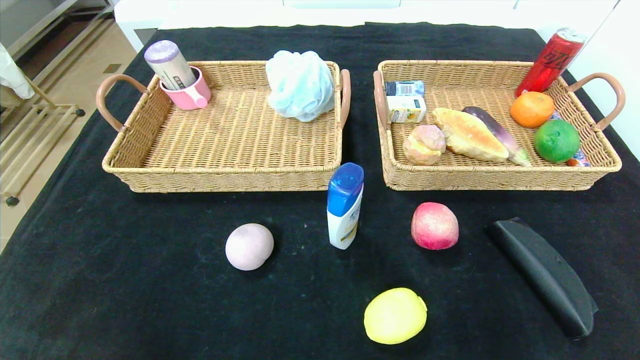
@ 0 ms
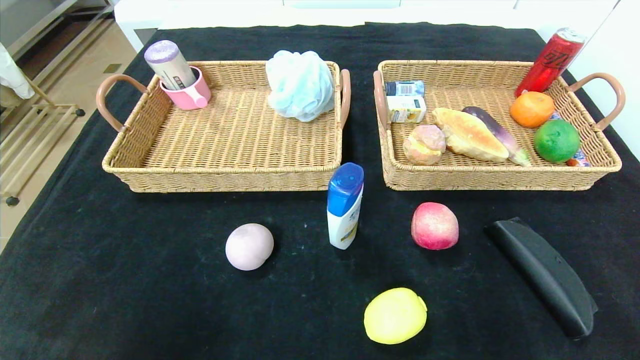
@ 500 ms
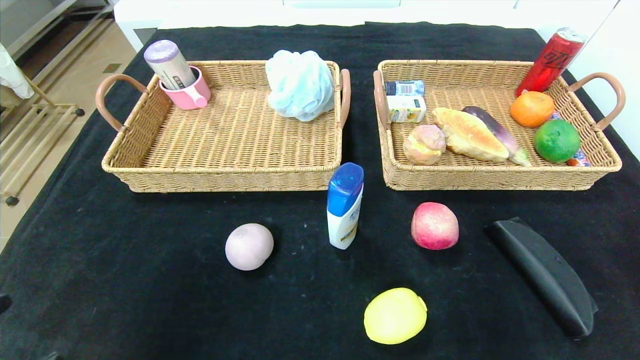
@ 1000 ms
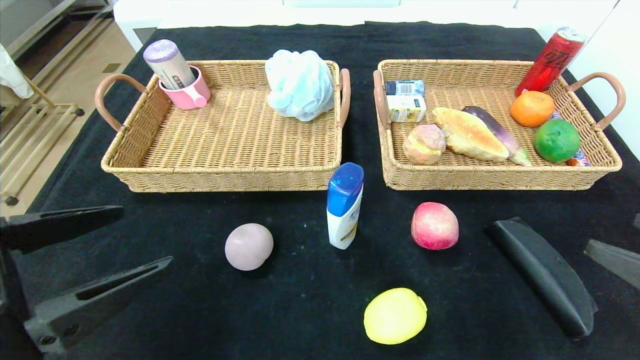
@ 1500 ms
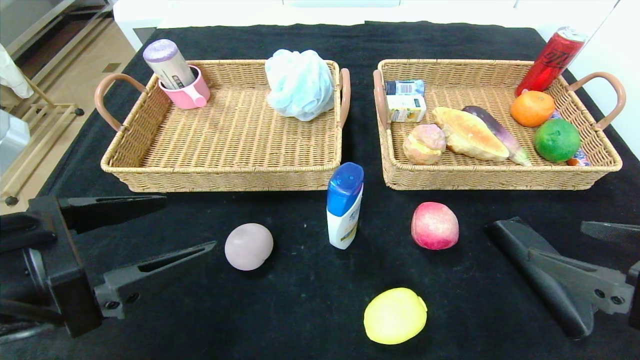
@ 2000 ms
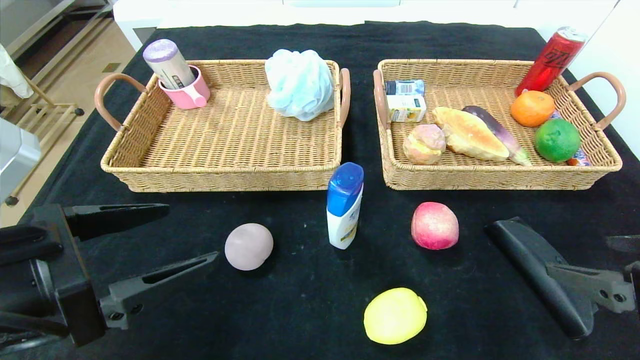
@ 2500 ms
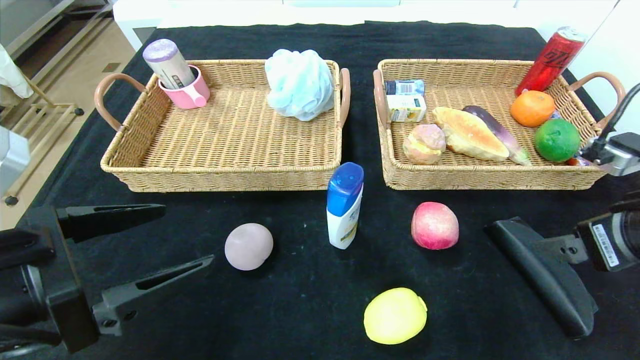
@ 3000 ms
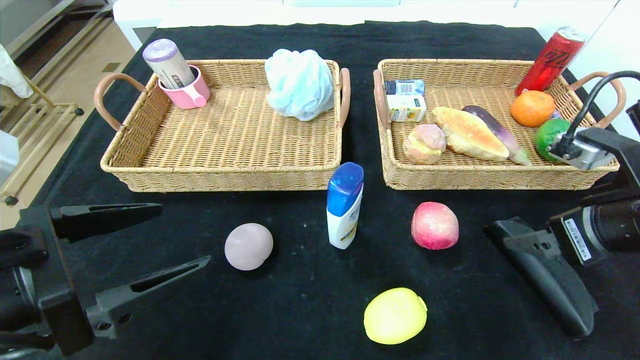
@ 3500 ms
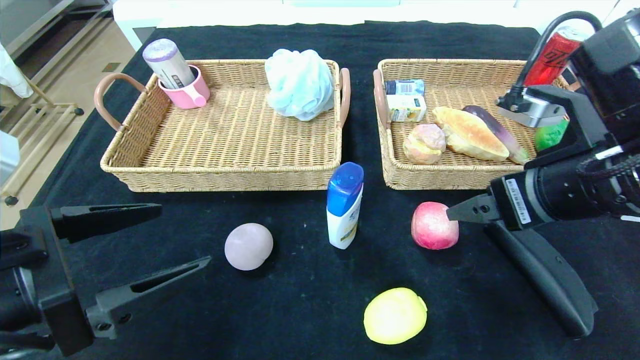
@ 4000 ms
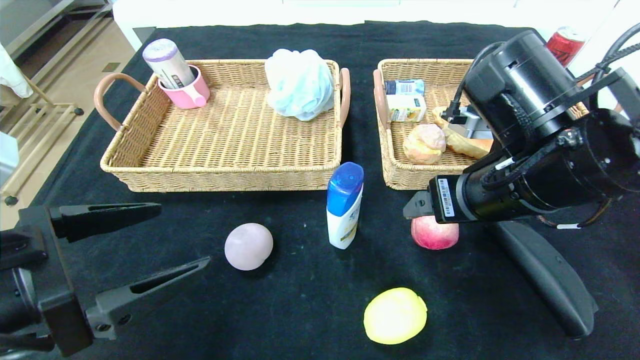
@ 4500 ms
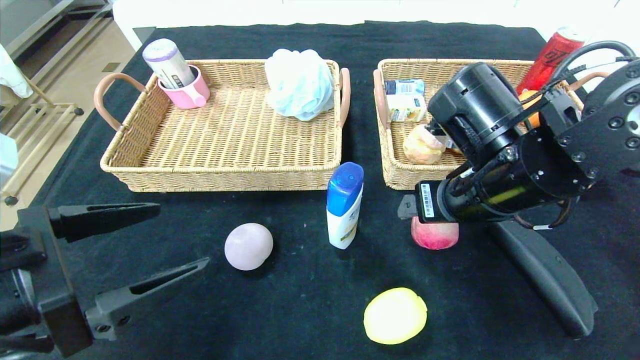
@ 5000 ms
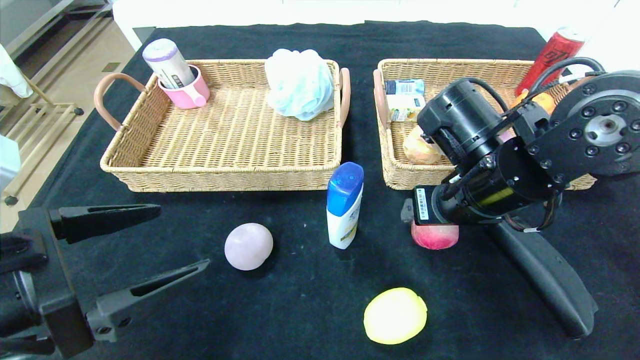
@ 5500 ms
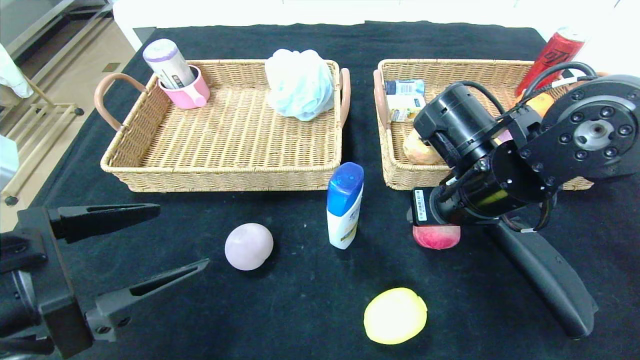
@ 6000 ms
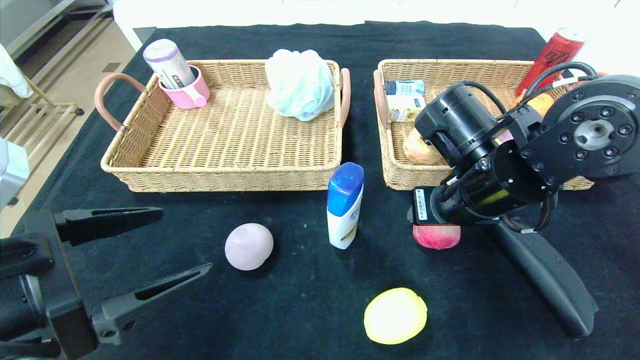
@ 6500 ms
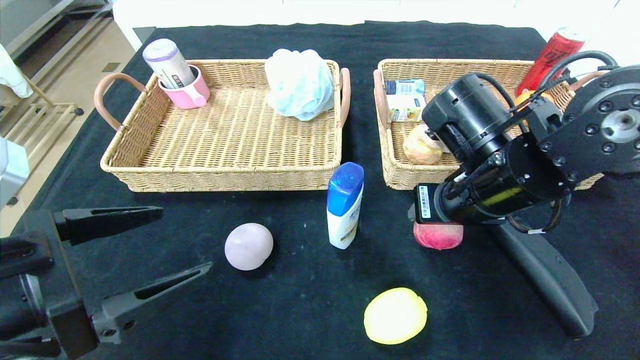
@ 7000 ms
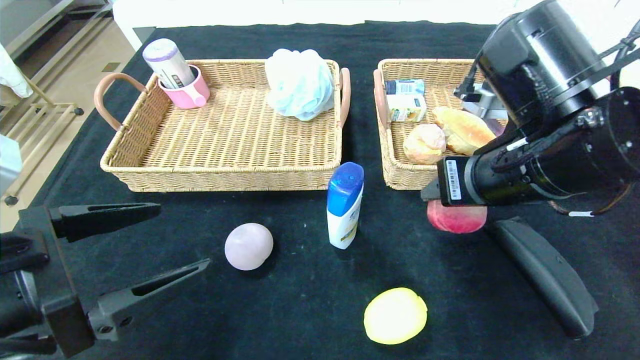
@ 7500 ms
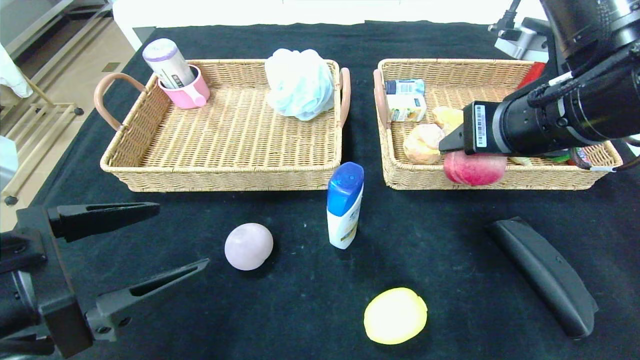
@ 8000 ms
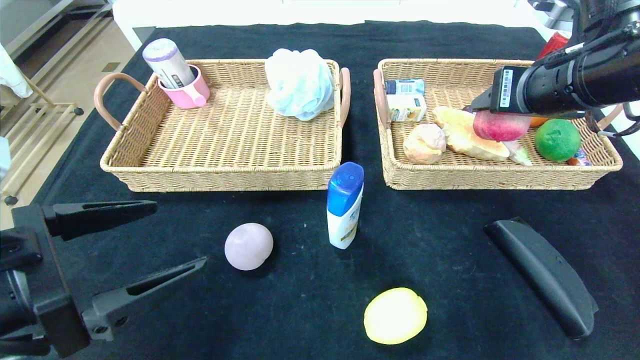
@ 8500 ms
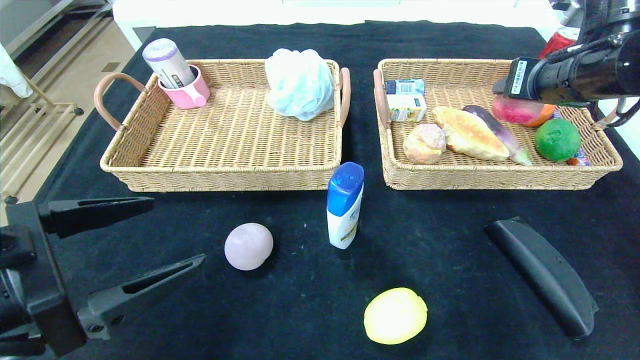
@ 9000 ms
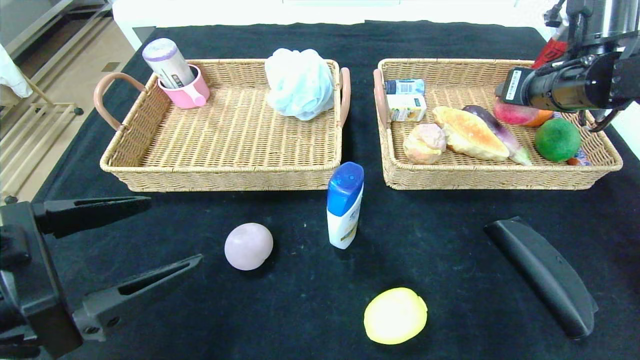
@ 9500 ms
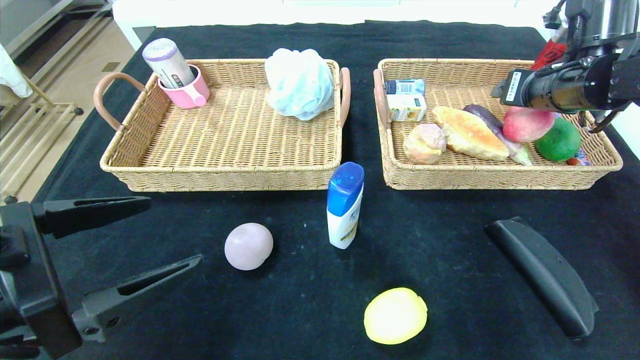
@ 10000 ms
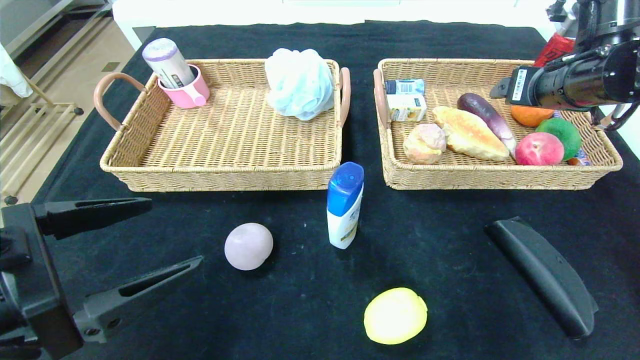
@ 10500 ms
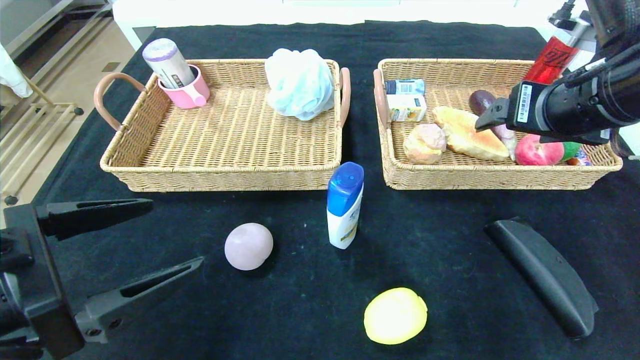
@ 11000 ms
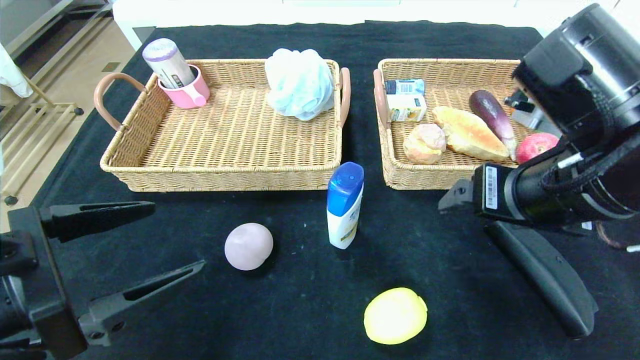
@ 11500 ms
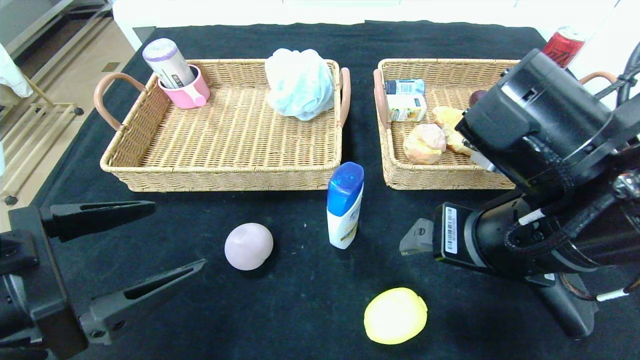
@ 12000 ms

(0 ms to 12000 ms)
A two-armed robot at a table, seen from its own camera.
Step, 0 ms - 11500 ms: Pick up the peach and put it in the right basket.
0 ms - 2000 ms: The right gripper is displaced upward, forward and to the left by roughly 25 cm; the left gripper travels upward and forward by roughly 25 cm.
2000 ms - 4000 ms: The right gripper travels forward, to the left and upward by some 15 cm.
4000 ms - 6000 ms: The right gripper goes about 10 cm forward, to the left and downward, and closes up.
6000 ms - 8000 ms: The right gripper shifts about 10 cm upward.
8000 ms - 10000 ms: The right gripper travels forward and to the right by approximately 15 cm.
10000 ms - 12000 ms: The right gripper is displaced backward and to the left by some 25 cm.

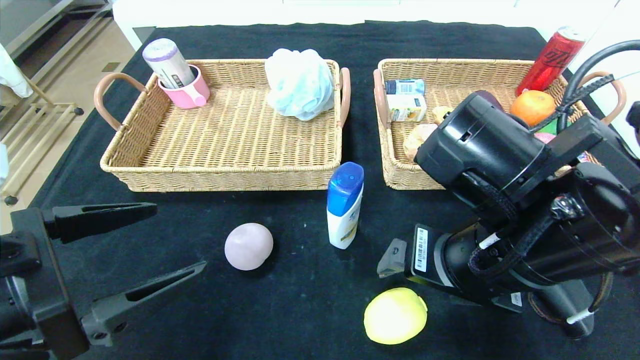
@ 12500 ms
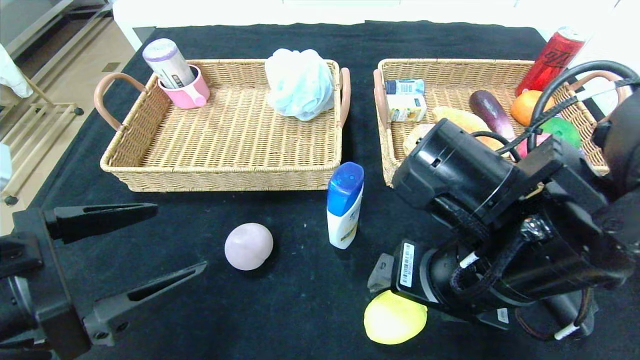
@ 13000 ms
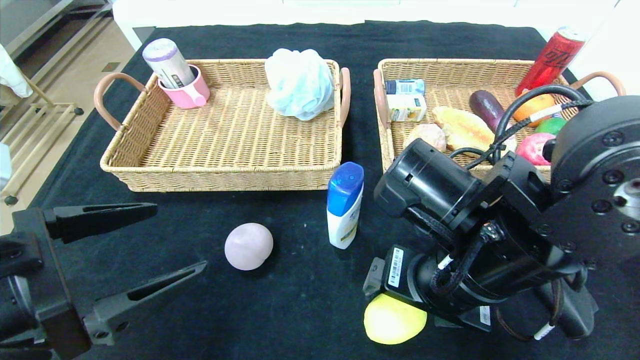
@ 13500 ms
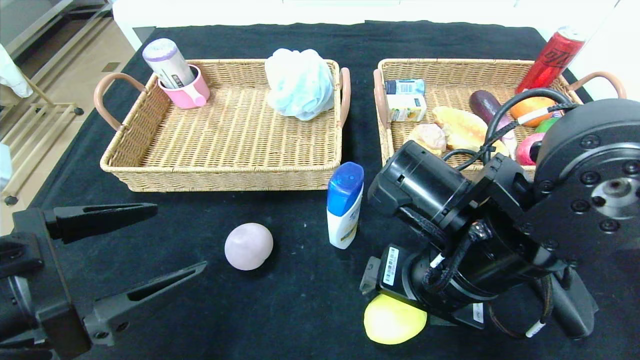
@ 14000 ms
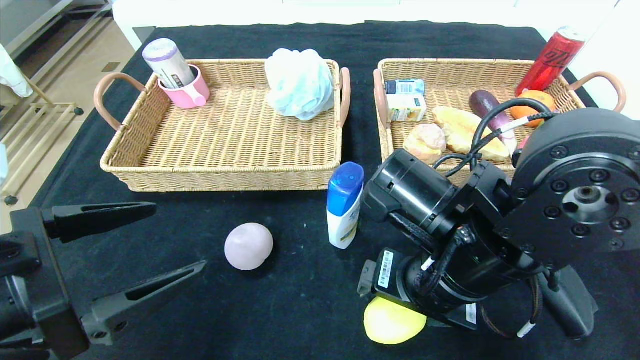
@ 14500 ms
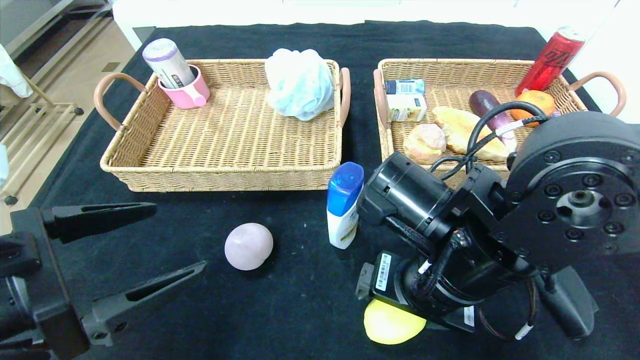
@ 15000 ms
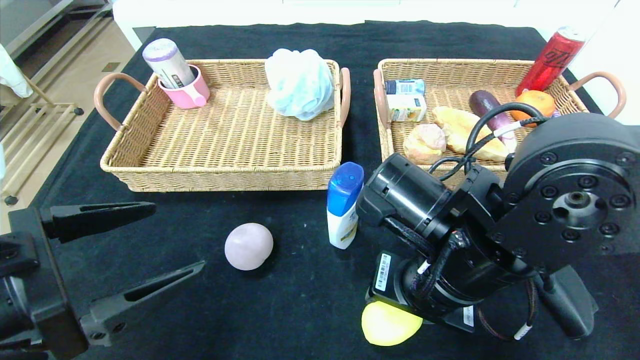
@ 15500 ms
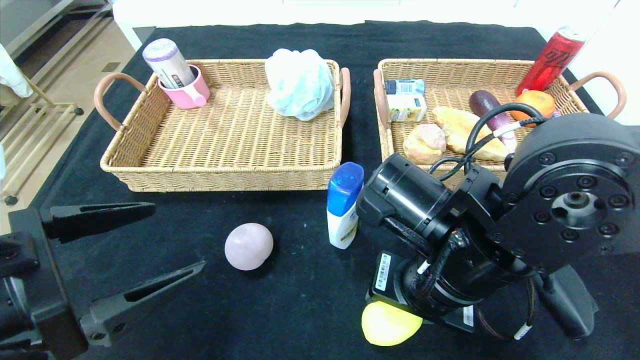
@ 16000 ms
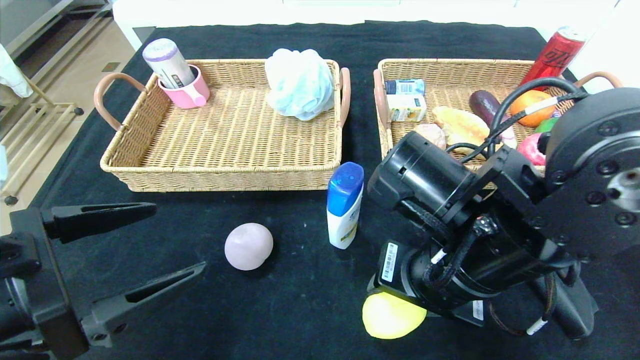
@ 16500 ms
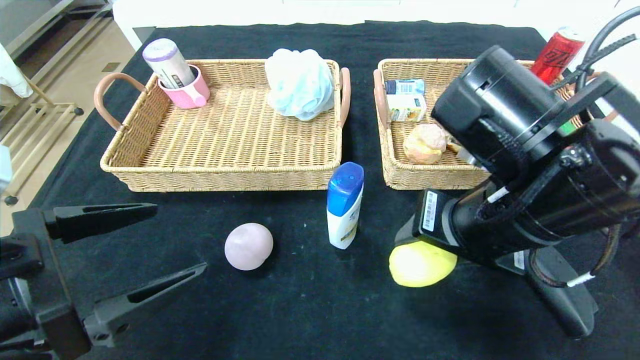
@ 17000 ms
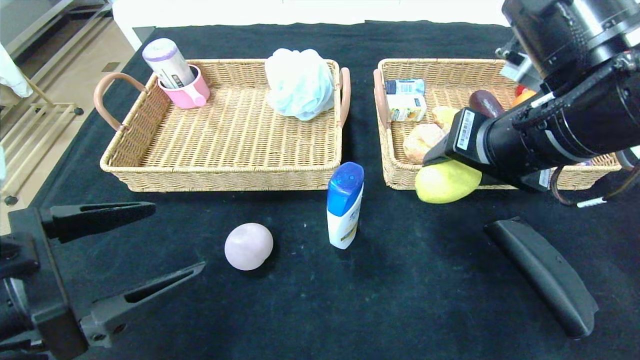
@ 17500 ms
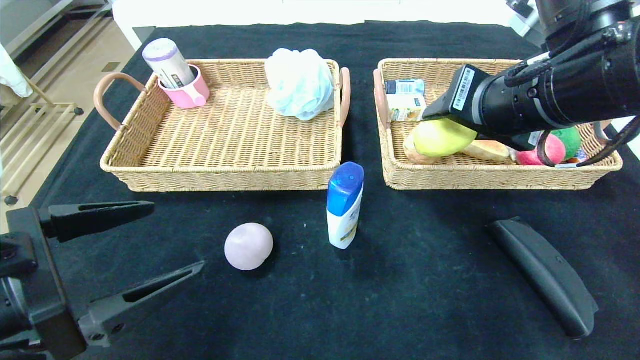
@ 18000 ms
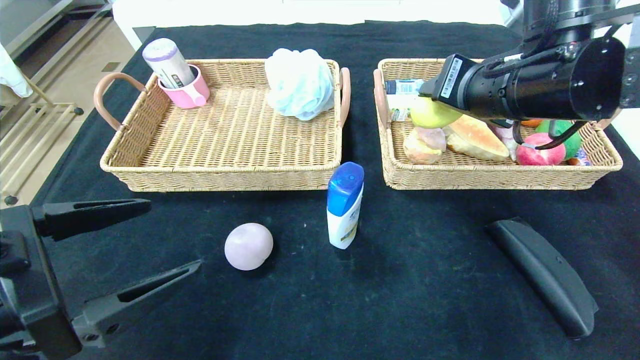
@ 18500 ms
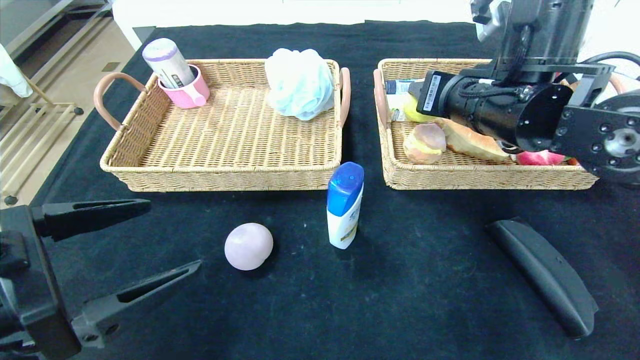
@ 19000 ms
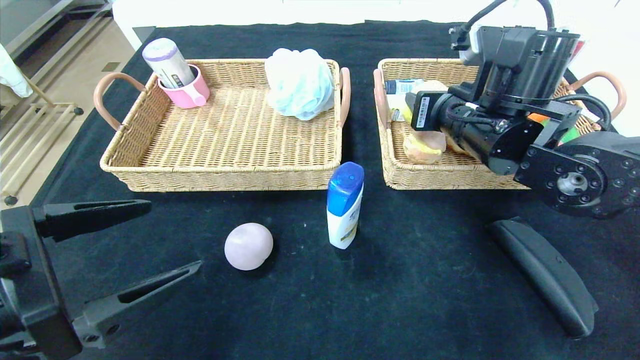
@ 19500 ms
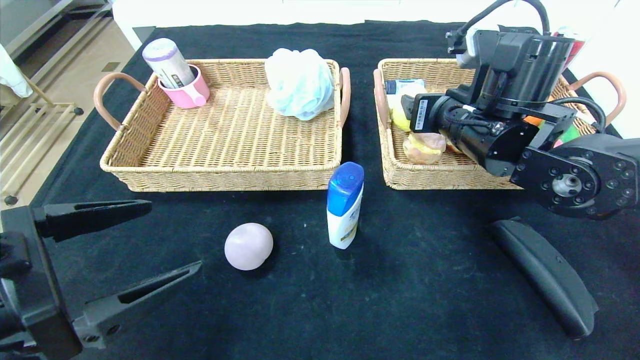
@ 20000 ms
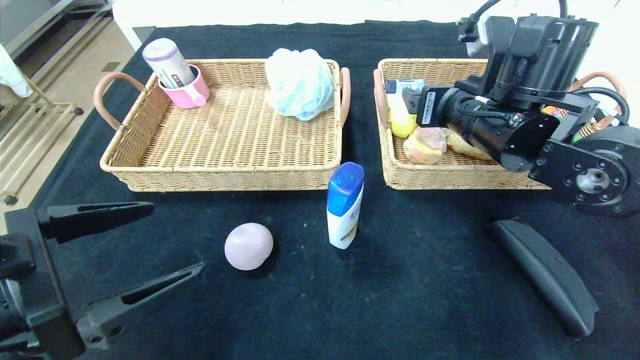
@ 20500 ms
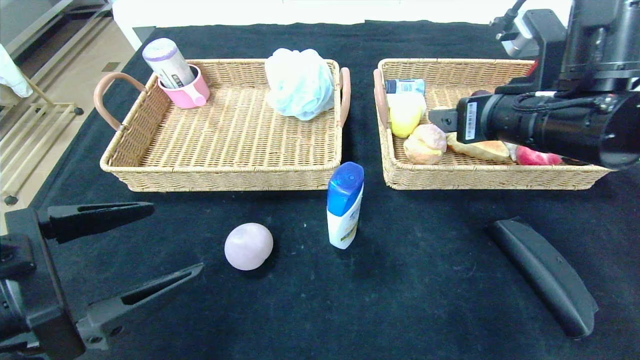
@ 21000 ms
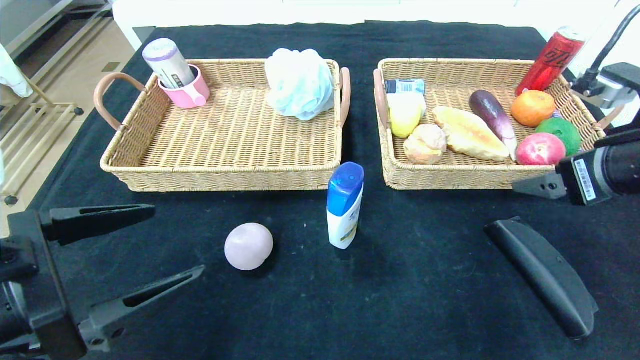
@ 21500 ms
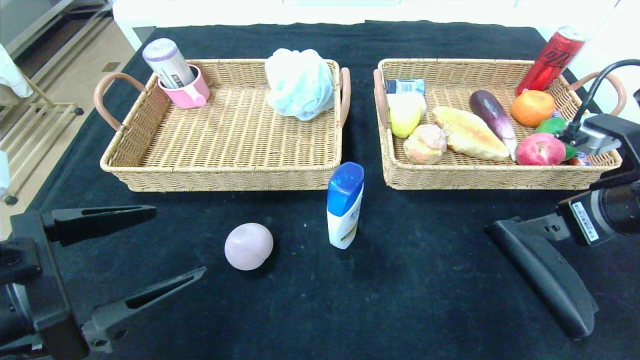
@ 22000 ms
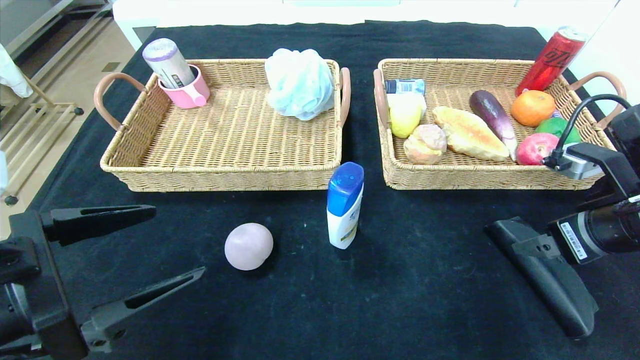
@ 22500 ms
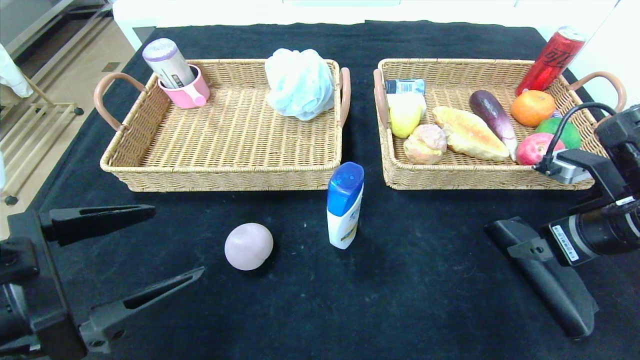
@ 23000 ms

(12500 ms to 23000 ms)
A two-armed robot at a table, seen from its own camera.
Step, 12500 ms - 21500 ms: Pick up the lemon and put it in the right basket.
12500 ms - 14500 ms: The right gripper shifts by some 5 cm.
14500 ms - 16500 ms: The right gripper closes up.
16500 ms - 19000 ms: The right gripper travels forward, upward and to the right by approximately 15 cm.
19000 ms - 21000 ms: The right gripper shifts by roughly 5 cm, and opens.
21000 ms - 23000 ms: The right gripper travels to the right and downward by some 10 cm.
